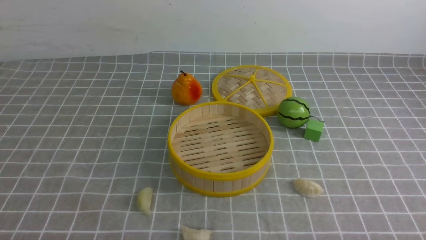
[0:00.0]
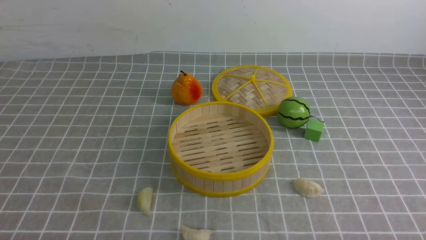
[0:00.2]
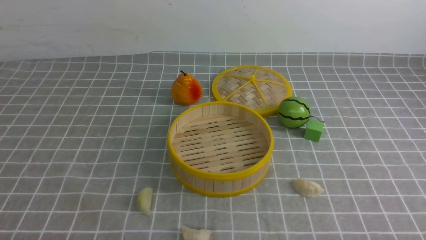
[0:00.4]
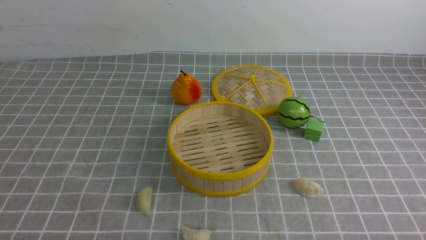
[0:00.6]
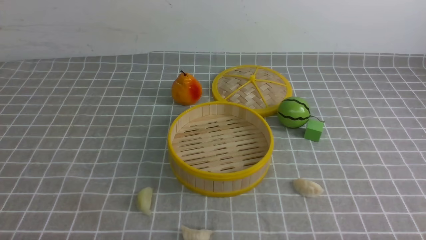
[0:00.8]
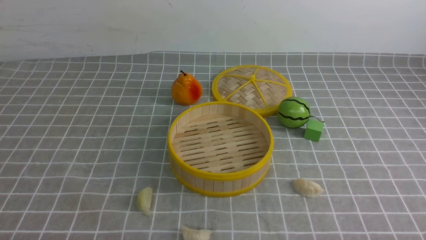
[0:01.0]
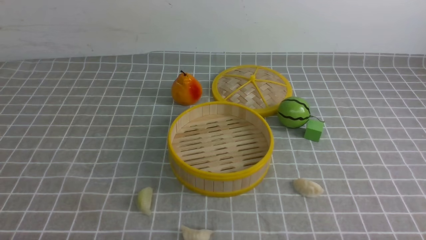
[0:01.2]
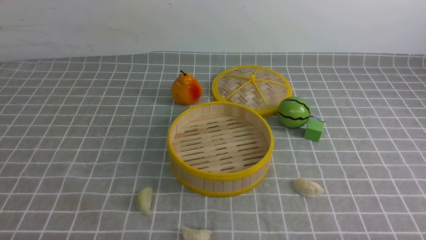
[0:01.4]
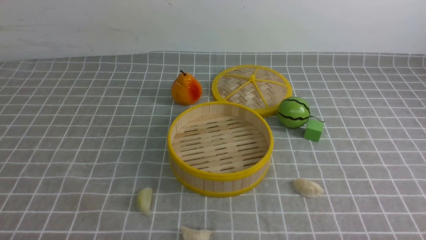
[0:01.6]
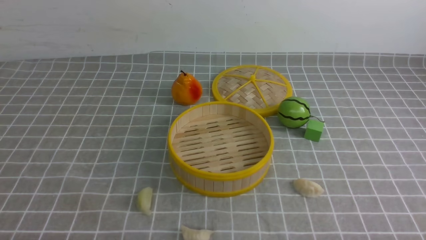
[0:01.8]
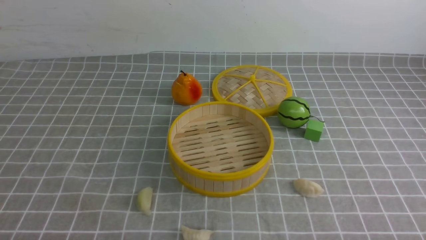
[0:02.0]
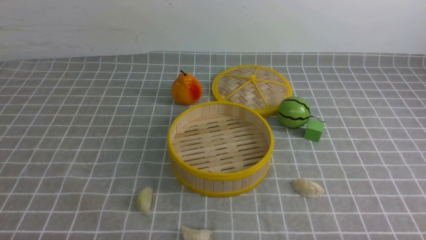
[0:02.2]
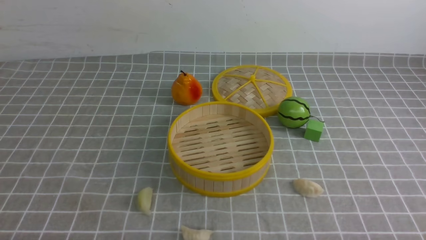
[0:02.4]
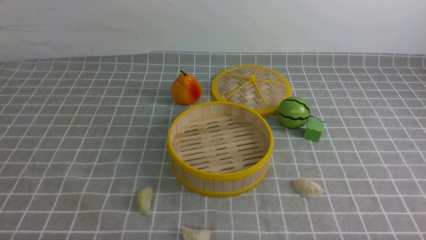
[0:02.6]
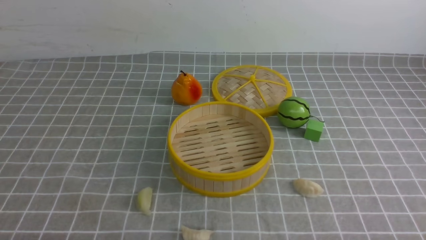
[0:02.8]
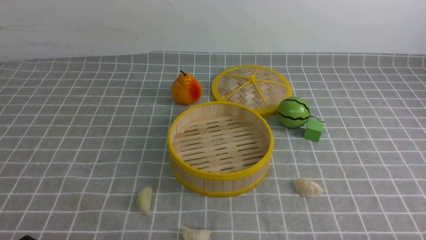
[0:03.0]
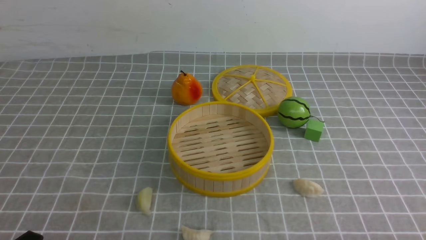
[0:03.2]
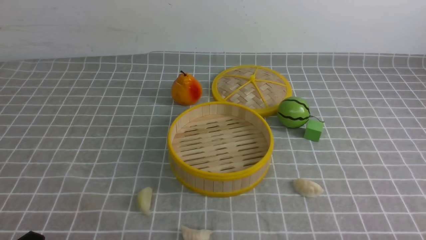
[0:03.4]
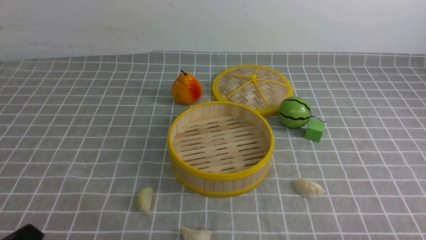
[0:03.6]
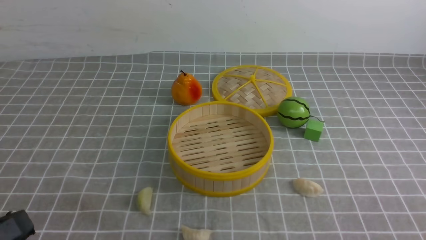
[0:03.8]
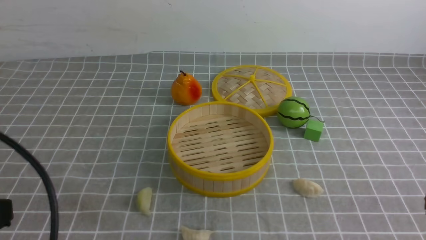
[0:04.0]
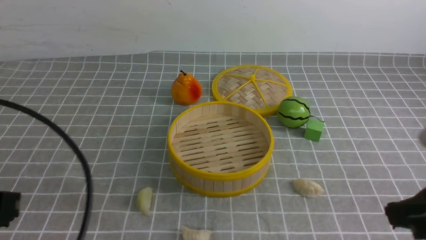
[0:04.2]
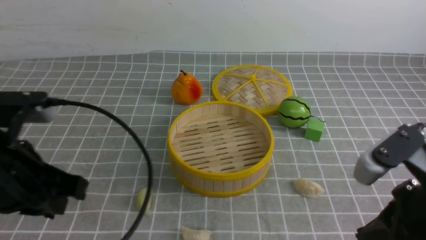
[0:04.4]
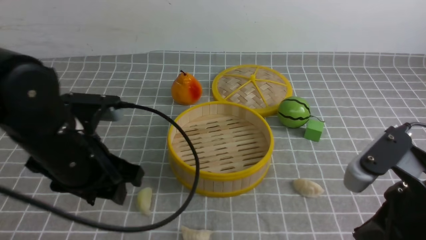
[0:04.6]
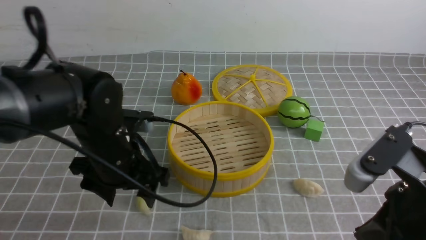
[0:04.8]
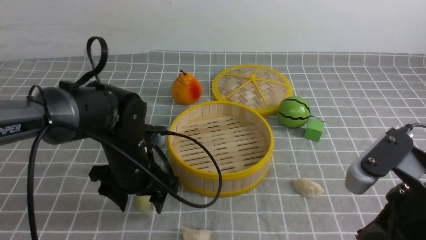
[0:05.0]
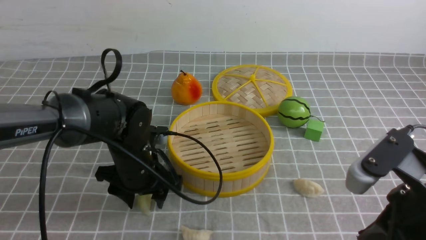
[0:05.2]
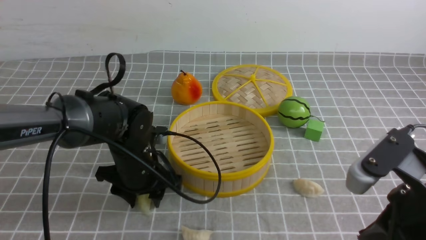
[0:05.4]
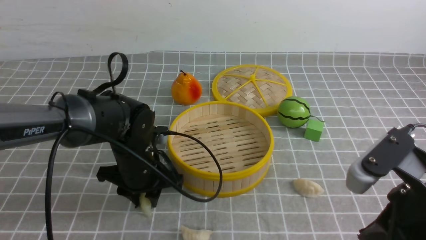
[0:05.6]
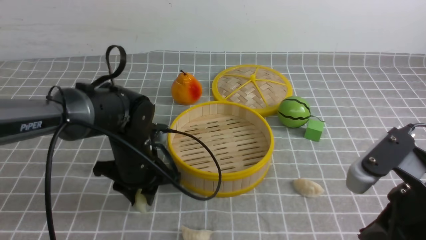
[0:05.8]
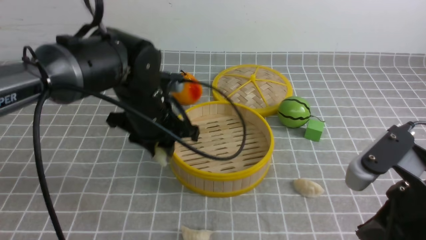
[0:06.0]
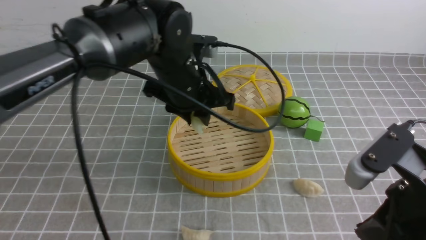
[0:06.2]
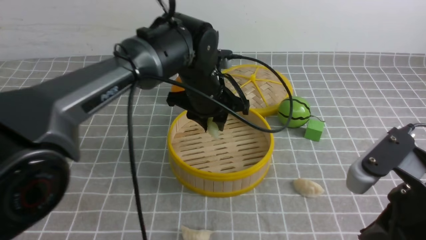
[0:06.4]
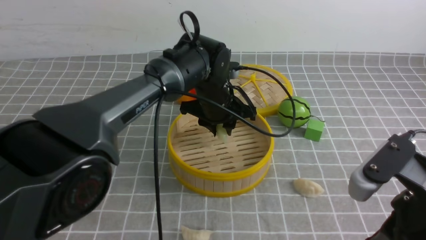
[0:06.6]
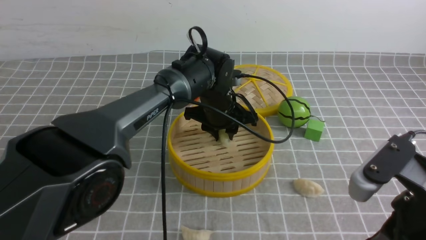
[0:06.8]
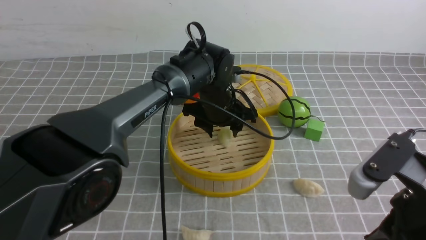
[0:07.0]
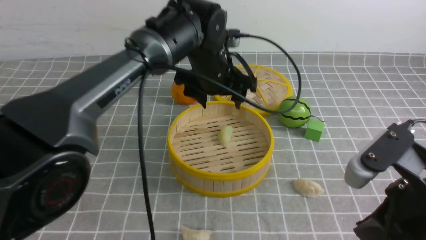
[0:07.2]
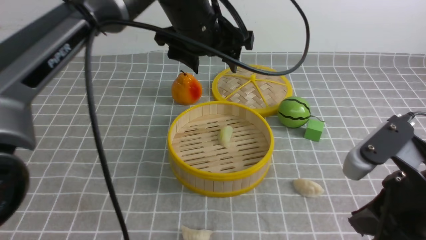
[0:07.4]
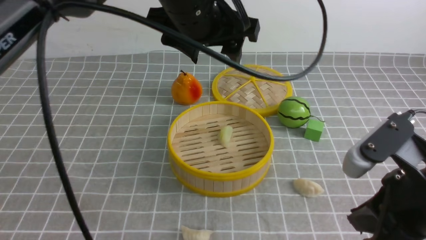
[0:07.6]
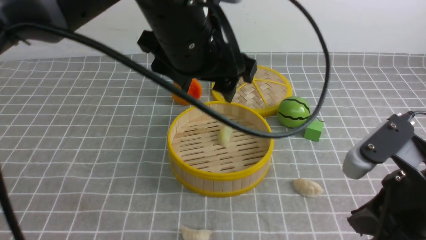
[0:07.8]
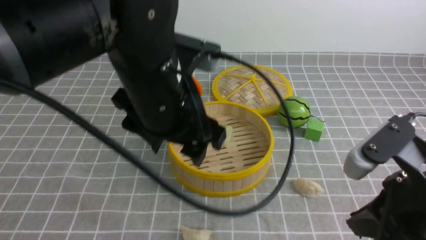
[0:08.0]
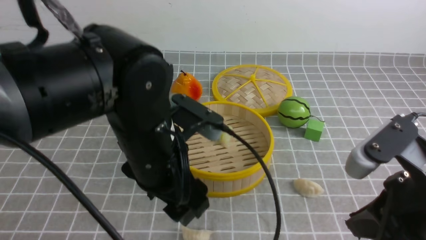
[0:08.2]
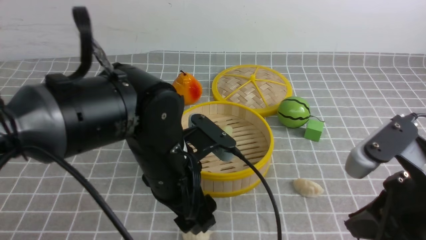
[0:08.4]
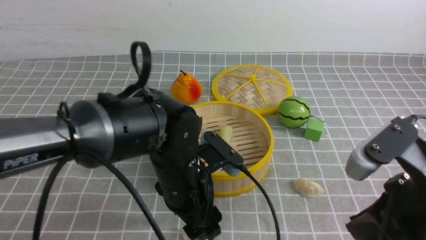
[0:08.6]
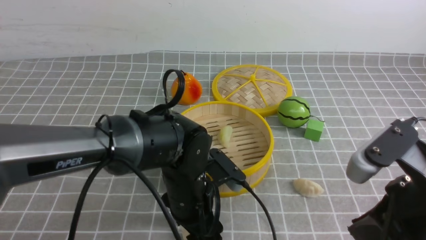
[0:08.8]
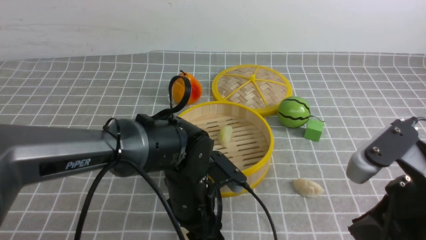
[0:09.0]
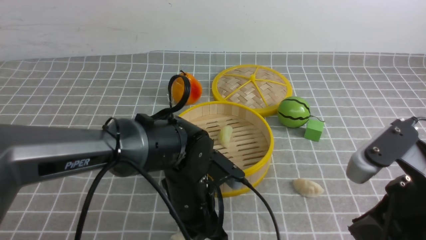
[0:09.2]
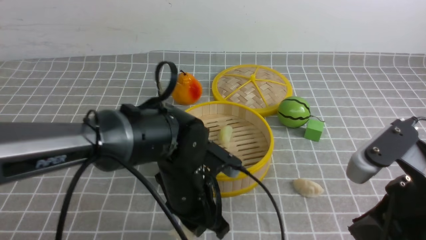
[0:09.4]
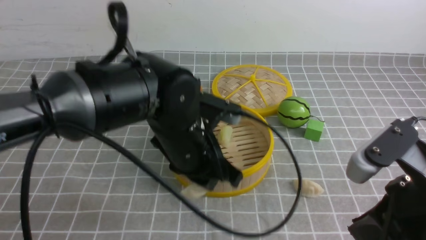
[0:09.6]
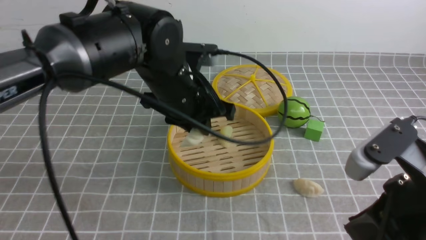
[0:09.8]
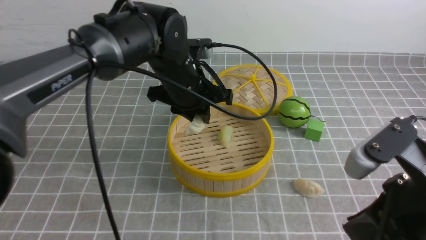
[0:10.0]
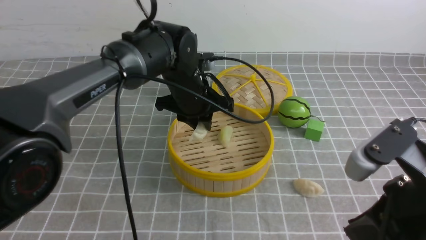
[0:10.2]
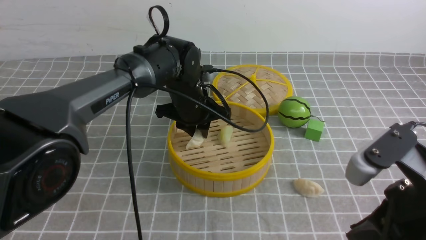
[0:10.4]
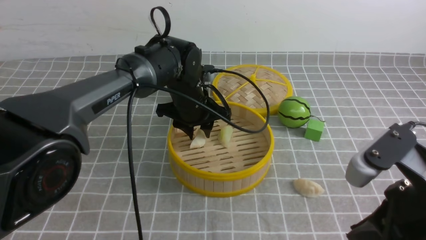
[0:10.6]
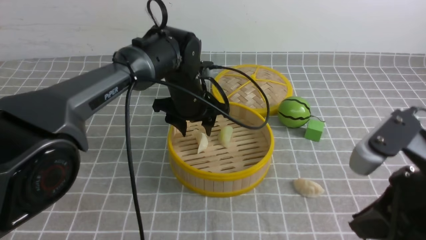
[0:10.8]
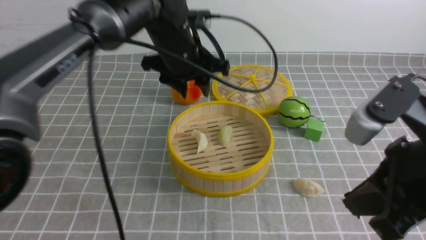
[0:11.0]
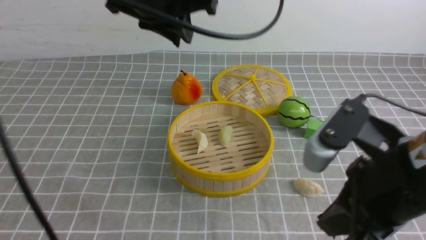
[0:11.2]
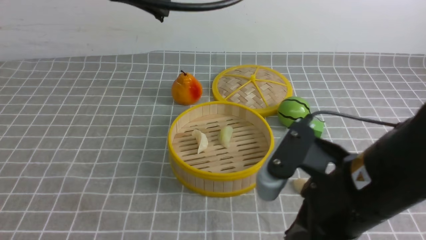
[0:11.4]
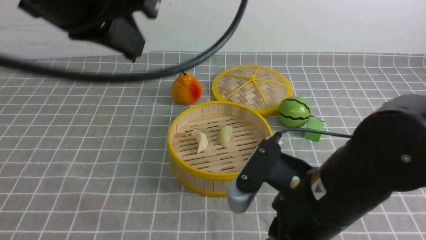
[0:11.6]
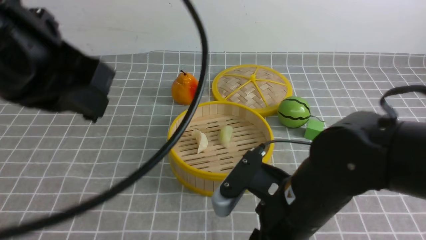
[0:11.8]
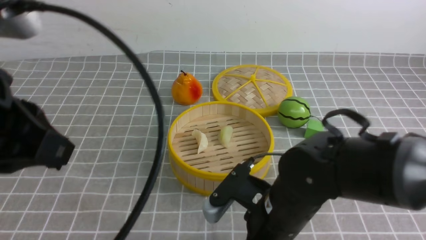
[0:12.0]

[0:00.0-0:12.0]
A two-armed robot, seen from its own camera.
Task of the whole recording: put the dumplings into the steamer on the table with the grey tablecloth.
Step, 0:00.0 to 0:05.8: use the left arm to grab a dumpling.
Step, 0:06.0 to 0:07.2: use the left arm to put the dumpling into the steamer.
Step, 0:07.4 to 0:09.4: use the left arm to grab a dumpling.
Step, 0:09.6 to 0:10.8: use the left arm to put the dumpling into the steamer.
0:03.0 to 0:04.4: The right gripper heads upward, forward and to the left, covering approximately 20 cm, and closes its fingers; the left gripper goes roughly 20 cm upward and forward.
0:04.4 to 0:06.0: The left gripper travels forward, to the right and downward by about 25 cm, and opens and closes again.
0:06.0 to 0:07.6: The left gripper moves up and down over some 20 cm, changing direction 2 times, and opens.
0:07.6 to 0:09.0: The left gripper goes some 25 cm downward.
0:09.0 to 0:10.4: The left gripper is displaced forward by approximately 15 cm, and closes up.
0:10.4 to 0:12.0: The left gripper travels backward, upward and to the left by roughly 35 cm, and closes, while the right gripper is displaced to the left, downward and forward by some 15 cm, and opens.

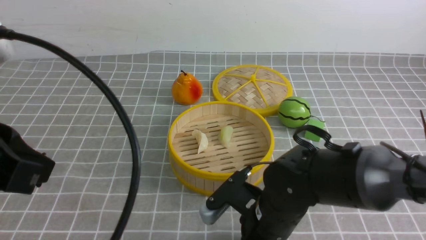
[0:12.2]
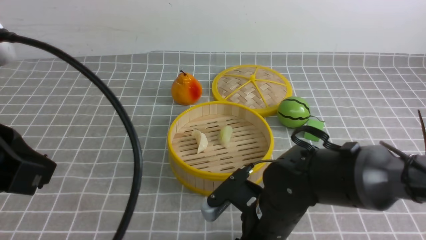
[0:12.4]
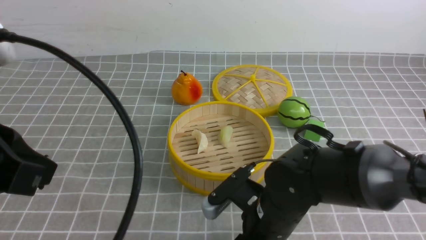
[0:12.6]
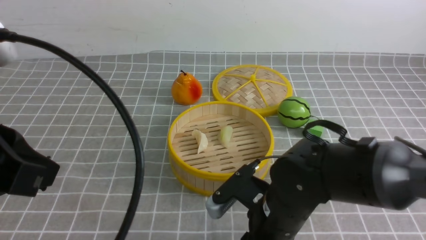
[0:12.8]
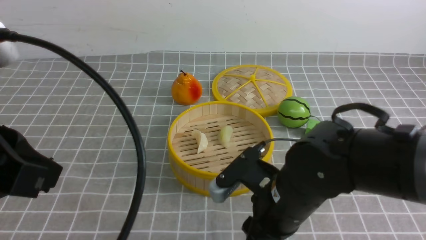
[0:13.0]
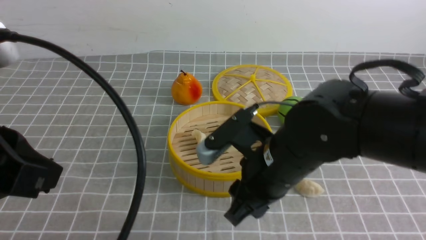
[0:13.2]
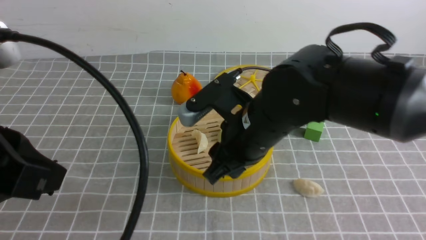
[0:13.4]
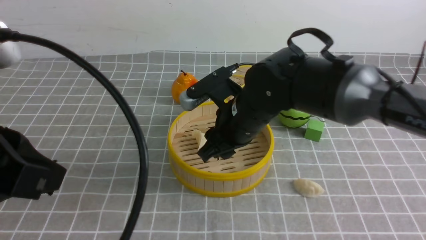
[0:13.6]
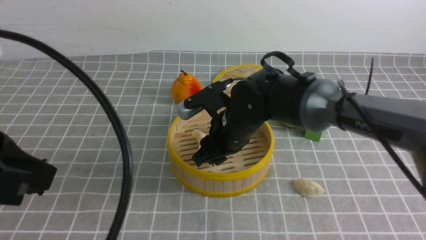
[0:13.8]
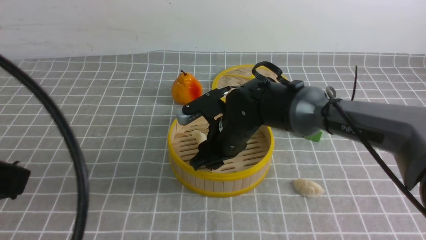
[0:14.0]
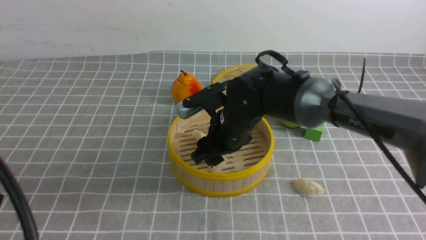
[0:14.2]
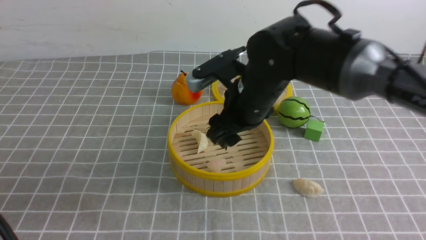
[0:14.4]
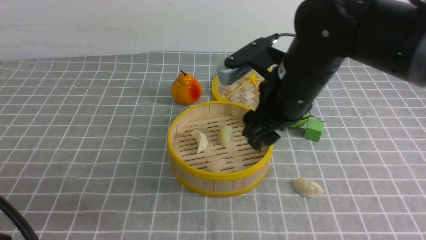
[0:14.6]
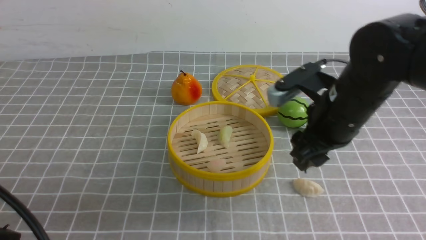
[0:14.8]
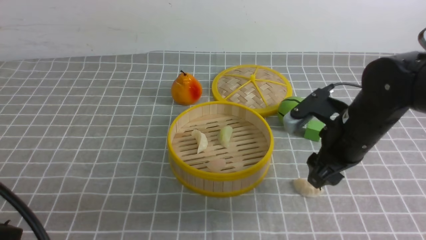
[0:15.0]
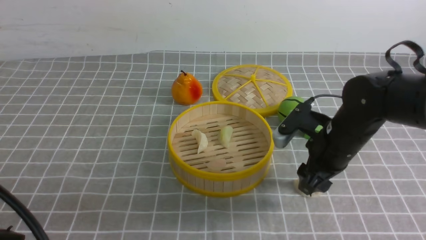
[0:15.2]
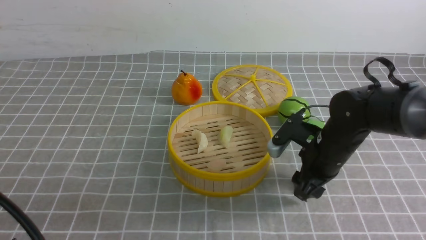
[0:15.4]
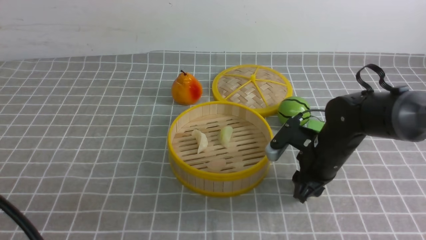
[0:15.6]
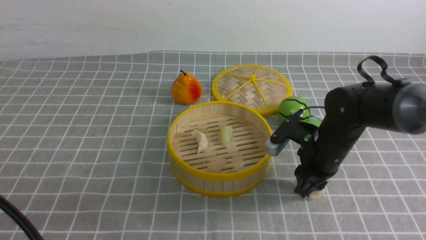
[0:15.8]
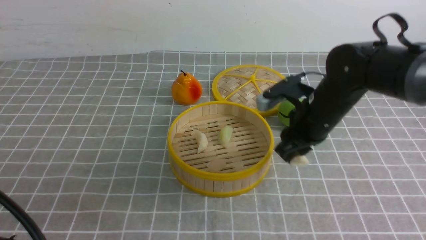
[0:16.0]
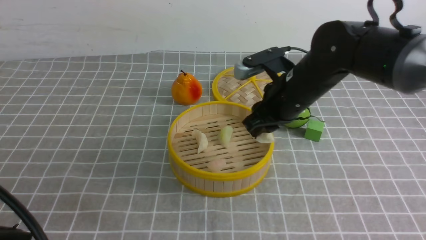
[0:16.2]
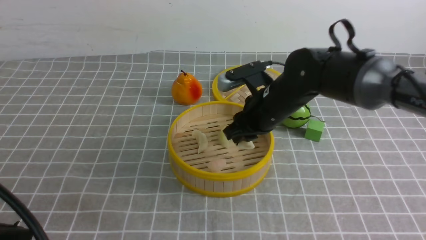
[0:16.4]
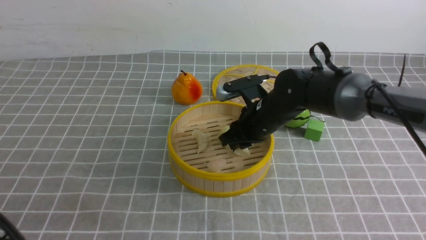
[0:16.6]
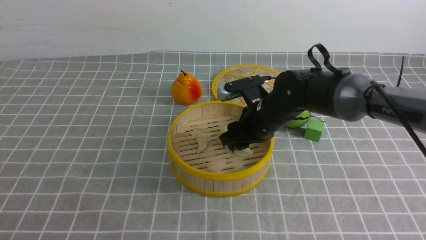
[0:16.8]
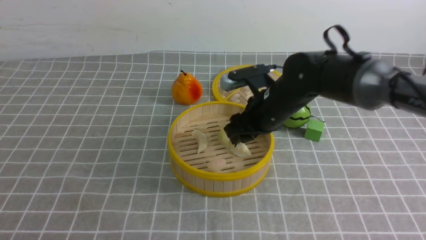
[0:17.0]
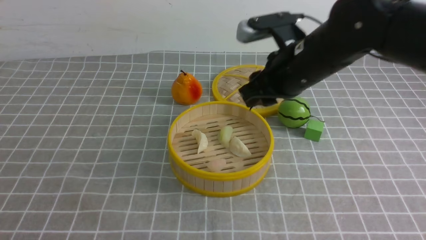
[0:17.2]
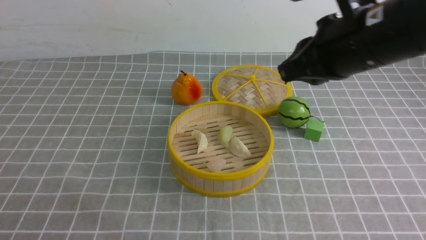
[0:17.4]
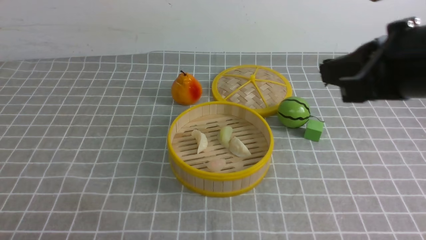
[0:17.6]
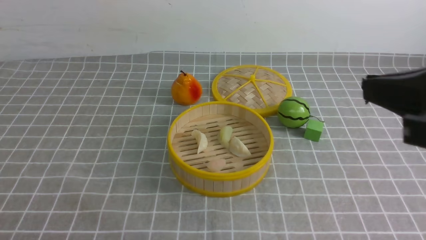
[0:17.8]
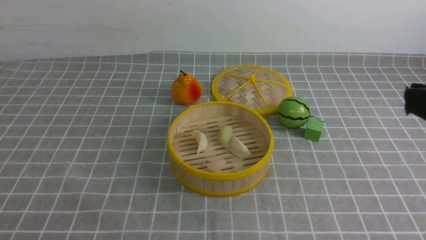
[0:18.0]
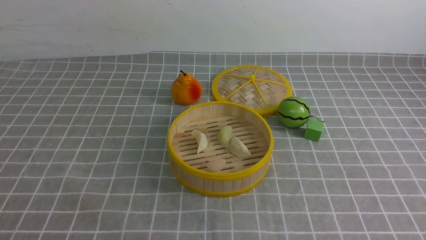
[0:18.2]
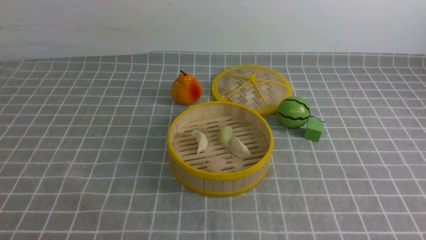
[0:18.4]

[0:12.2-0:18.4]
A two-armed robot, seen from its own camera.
Task of the whole recording: put the dumplings into the steamer on the table with the grey tablecloth.
Step, 0:13.0 to 0:14.4: use the right arm to put the dumpling into the steamer.
Step, 0:14.6 to 0:15.8: use the right arm to grab a dumpling.
Step, 0:16.0 to 0:17.0: use the right arm to put the dumpling into the steamer.
0:12.2 to 0:13.8: The right gripper moves forward and upward, some 15 cm.
0:13.8 to 0:15.4: The left gripper heads downward, covering approximately 5 cm, while the right gripper is displaced to the right by about 15 cm.
0:15.4 to 0:16.8: The right gripper heads to the left and forward, covering roughly 10 cm.
0:16.8 to 0:18.4: The right gripper heads backward, upward and to the right, covering approximately 40 cm, and closes.
